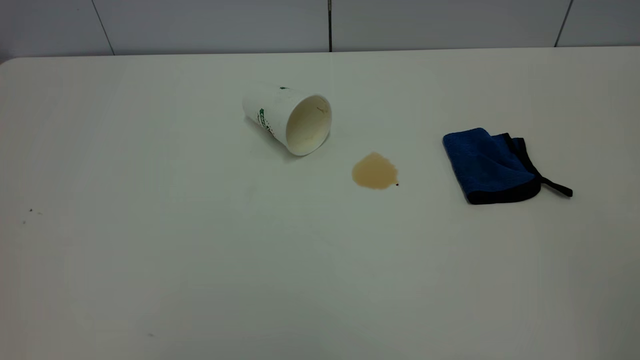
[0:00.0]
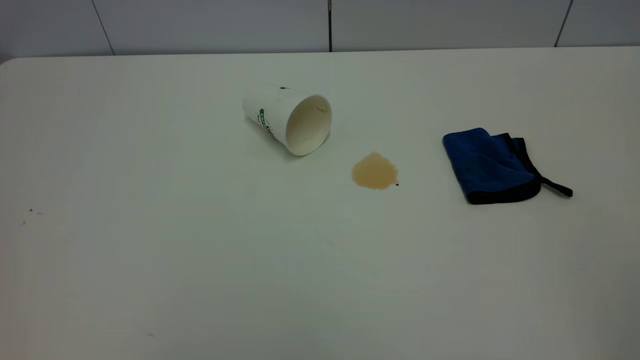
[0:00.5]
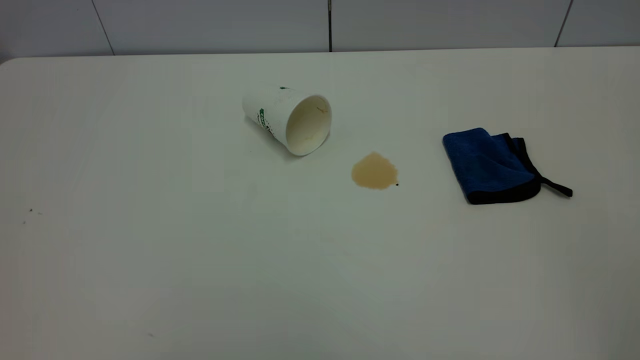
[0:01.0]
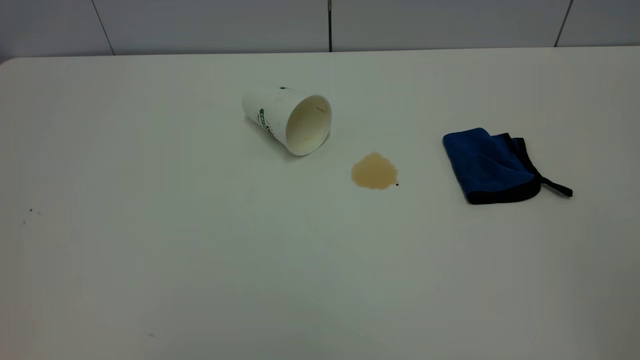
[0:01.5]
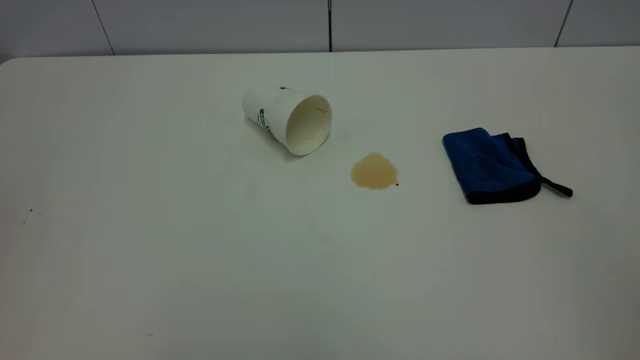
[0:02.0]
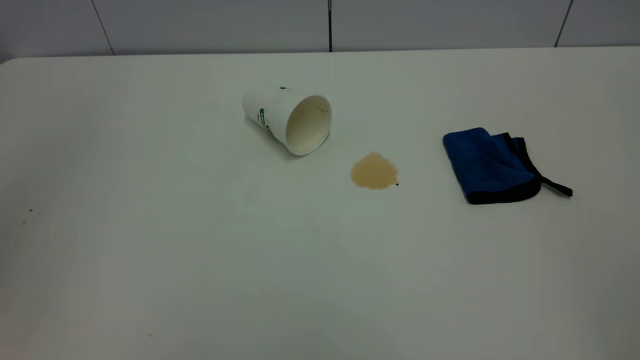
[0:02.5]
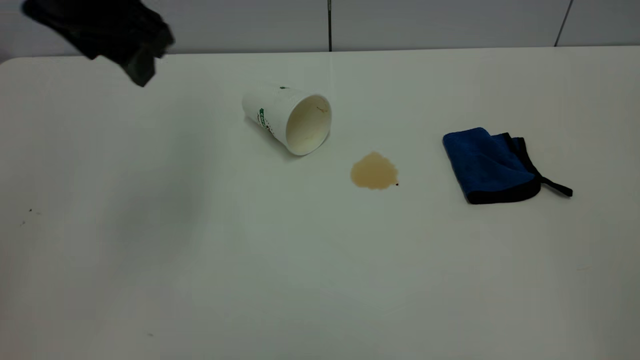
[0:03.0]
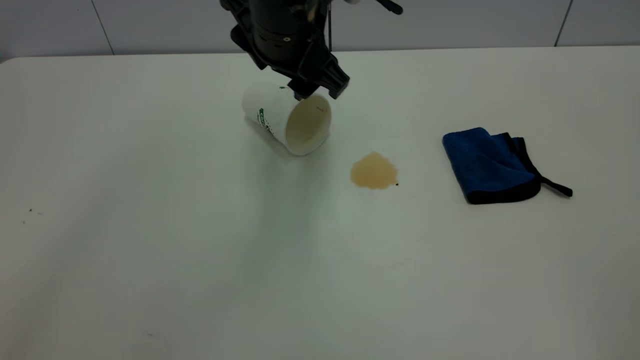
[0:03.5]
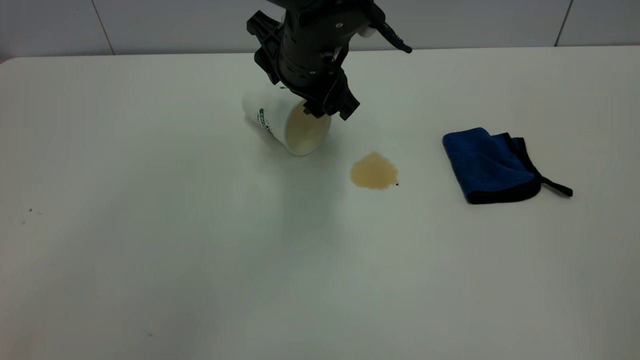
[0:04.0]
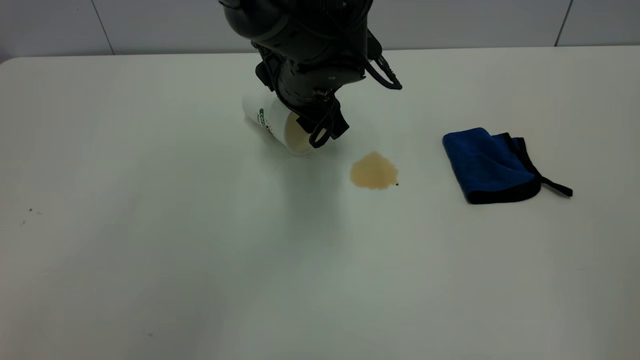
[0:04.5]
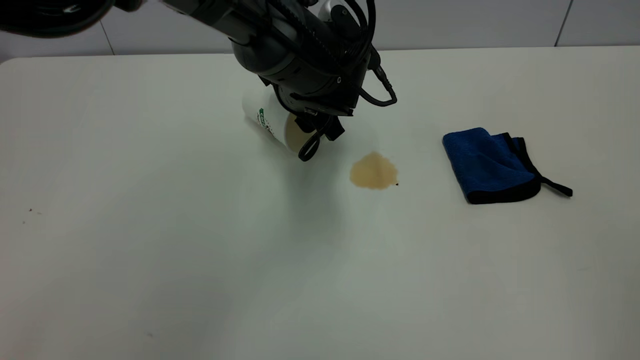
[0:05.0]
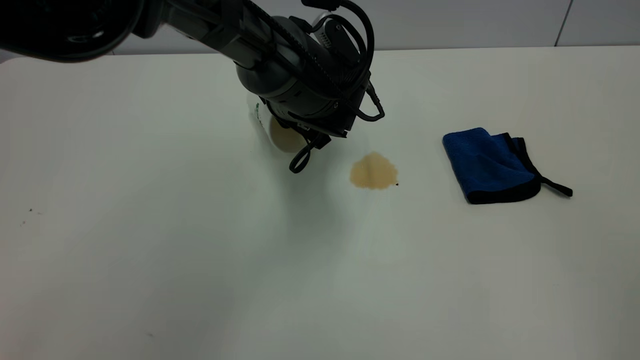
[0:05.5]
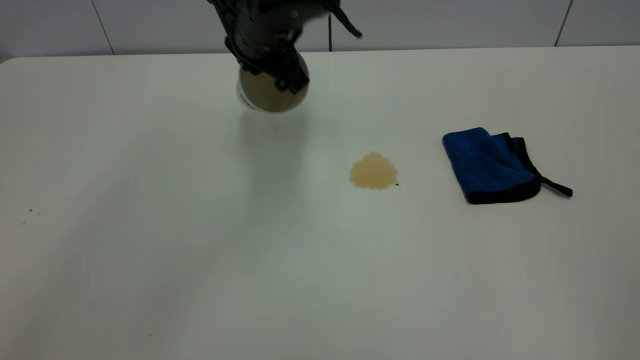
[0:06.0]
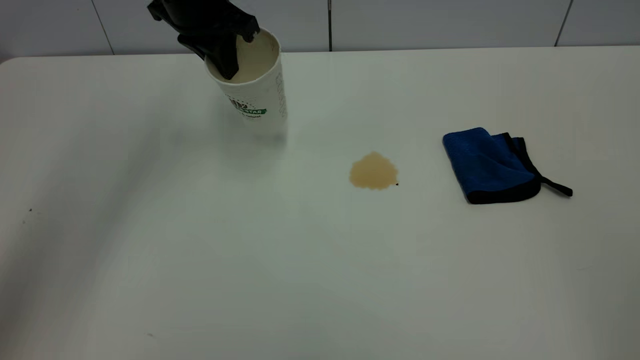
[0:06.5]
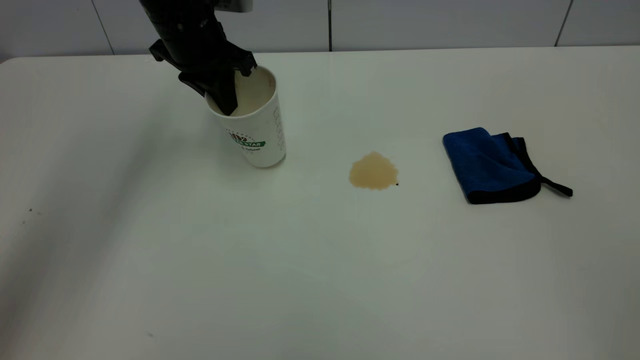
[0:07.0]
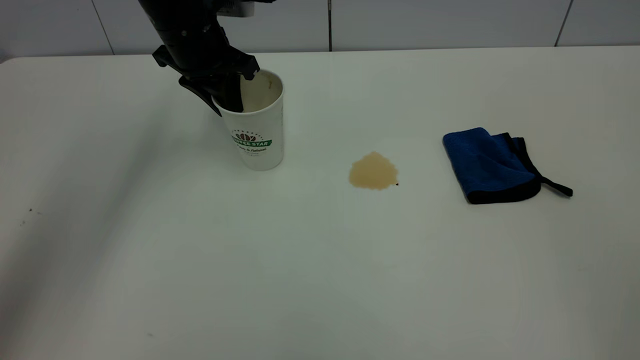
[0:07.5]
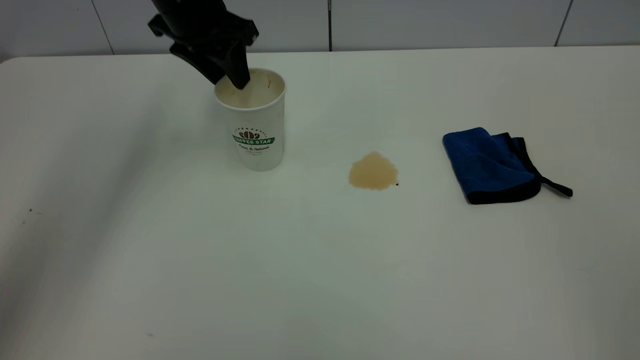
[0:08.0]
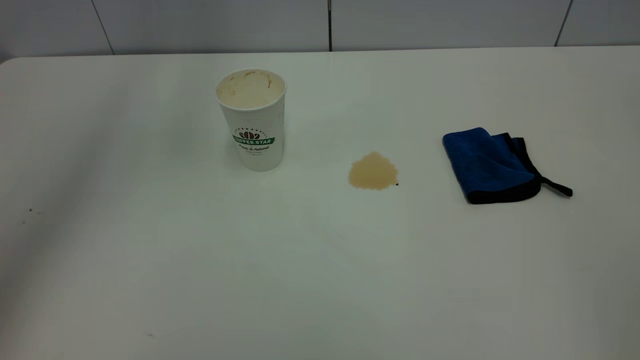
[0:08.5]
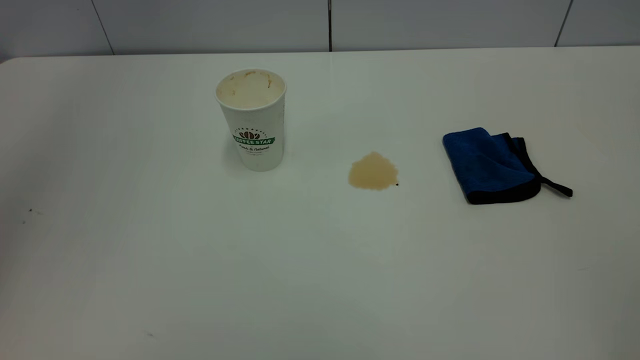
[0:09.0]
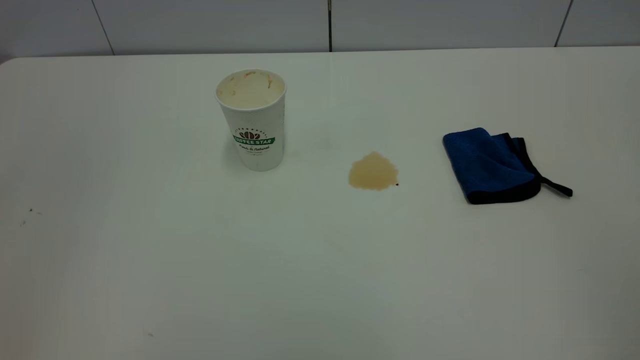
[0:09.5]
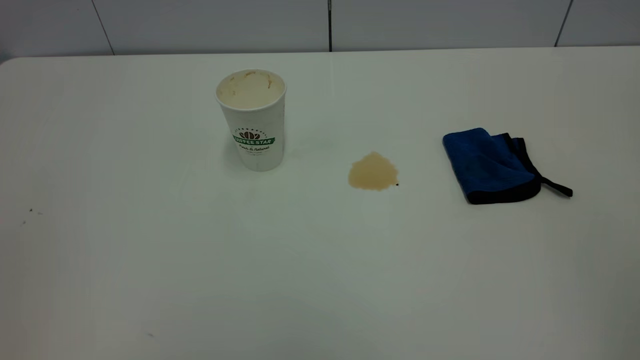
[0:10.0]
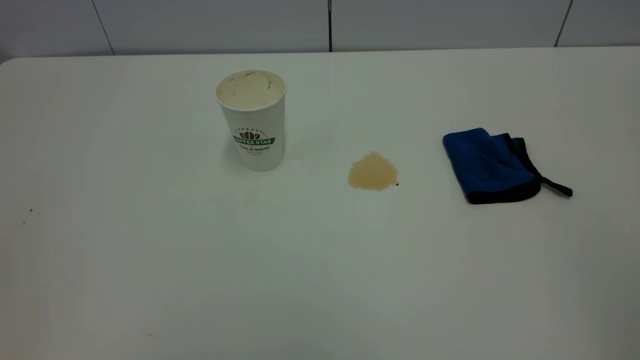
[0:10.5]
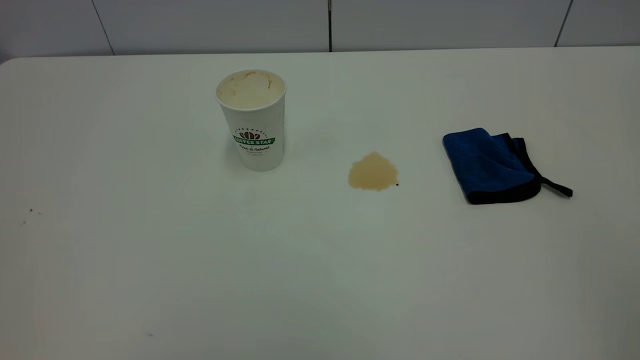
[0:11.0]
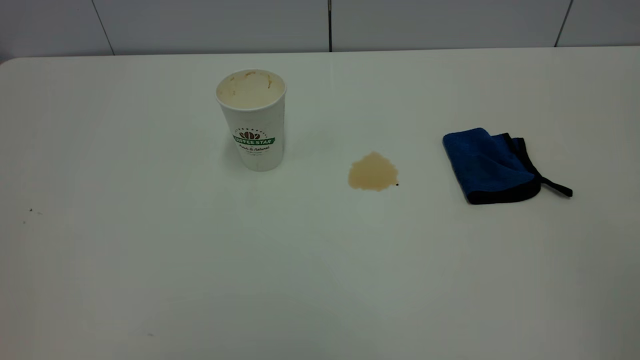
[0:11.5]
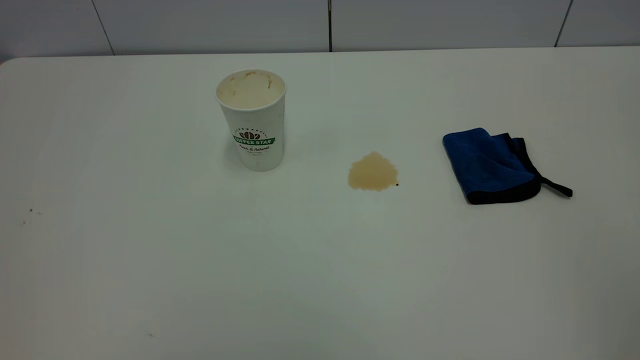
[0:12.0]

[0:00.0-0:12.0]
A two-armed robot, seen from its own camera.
Task of the whole recording: the left gripper pick up the fallen cup and place it upright, the right gripper grasp the blue rag and wipe the tea stain on the table, the right gripper put the blue rag back in its original position.
Step, 0:00.0 to 0:08.0: Stand the paper cup upright.
0:02.0 to 0:04.0: The left gripper heads forward, to the right and downward, covering approximately 50 cm.
0:04.0 to 0:06.0: The left gripper heads to the left, covering about 5 cm, moves roughly 5 cm downward and comes back, and closes its fingers.
0:06.0 to 0:08.0: The left gripper travels to the left by about 10 cm, and opens its fingers.
0:08.0 to 0:10.0: The left gripper travels backward by roughly 40 cm.

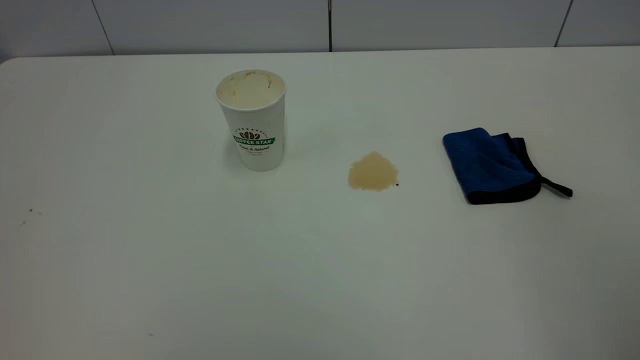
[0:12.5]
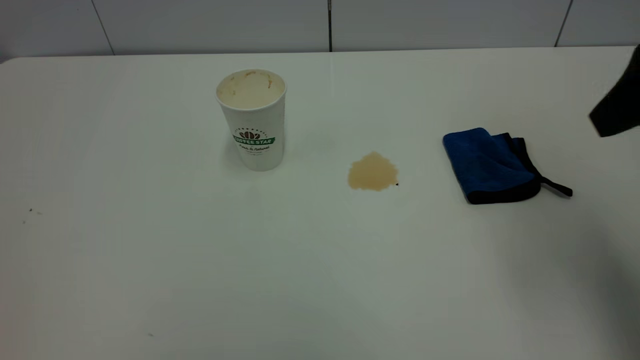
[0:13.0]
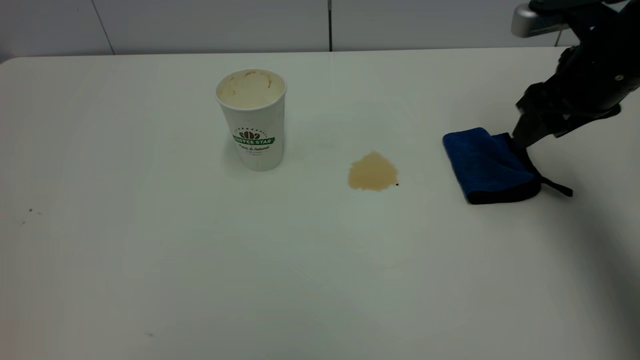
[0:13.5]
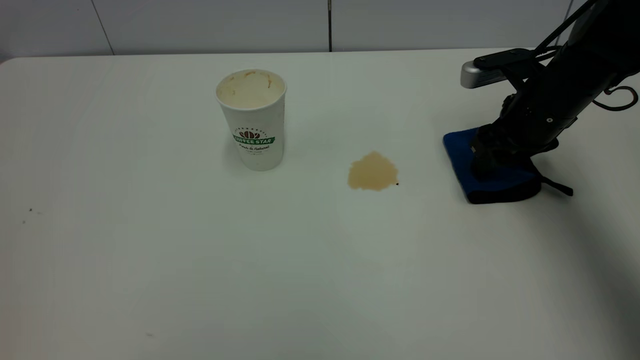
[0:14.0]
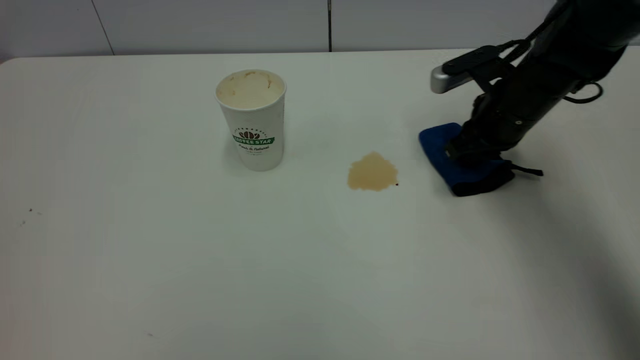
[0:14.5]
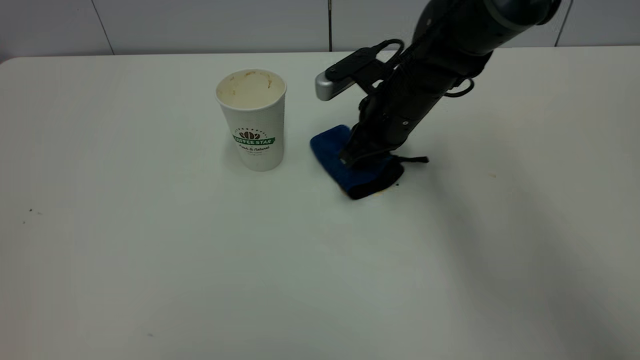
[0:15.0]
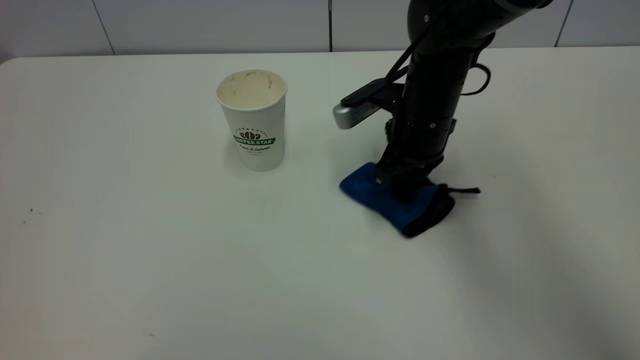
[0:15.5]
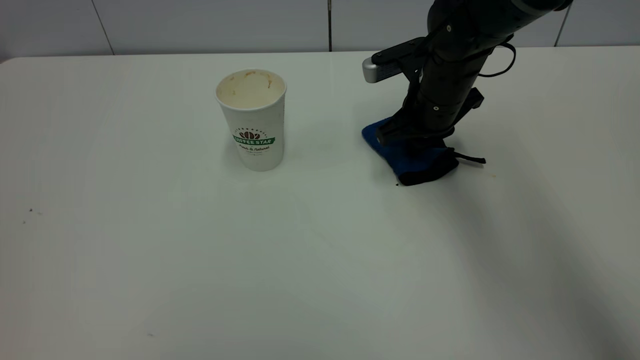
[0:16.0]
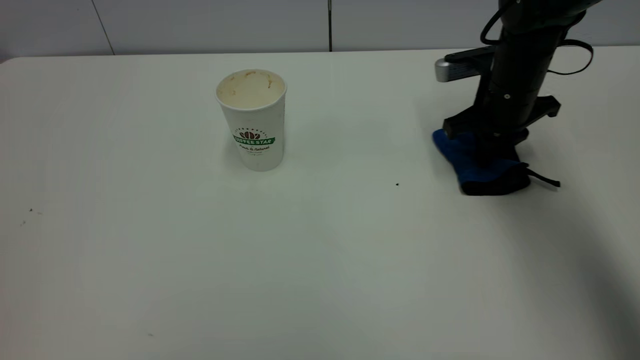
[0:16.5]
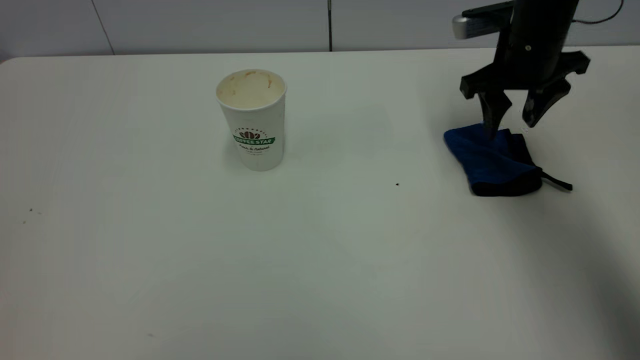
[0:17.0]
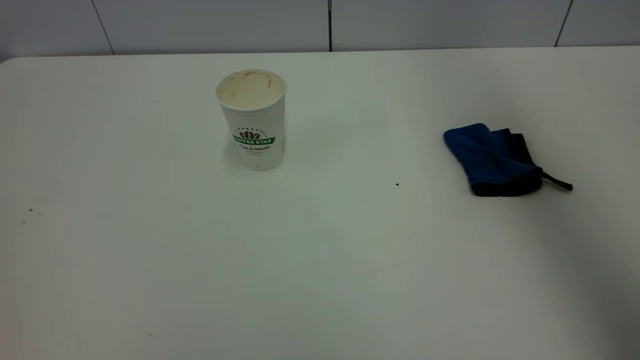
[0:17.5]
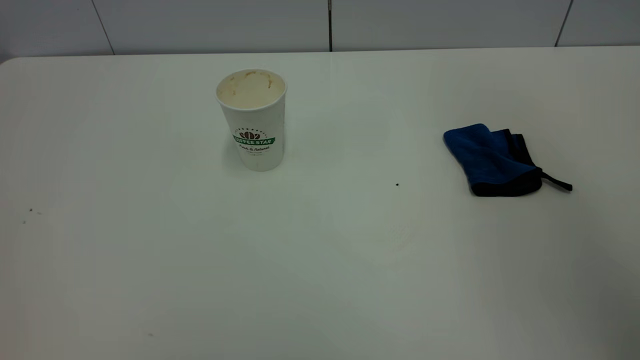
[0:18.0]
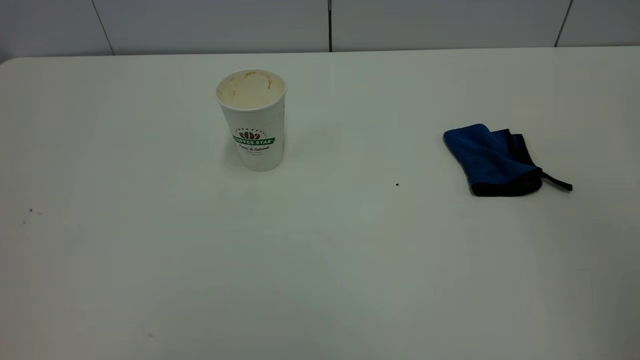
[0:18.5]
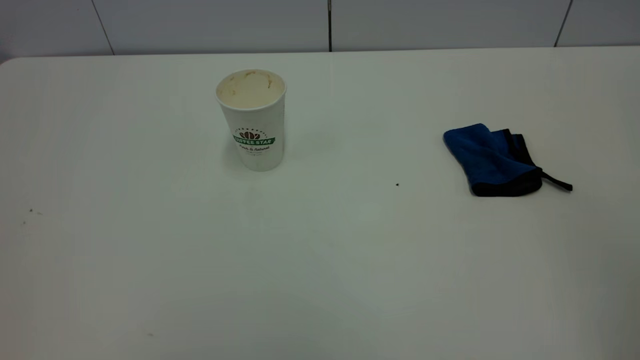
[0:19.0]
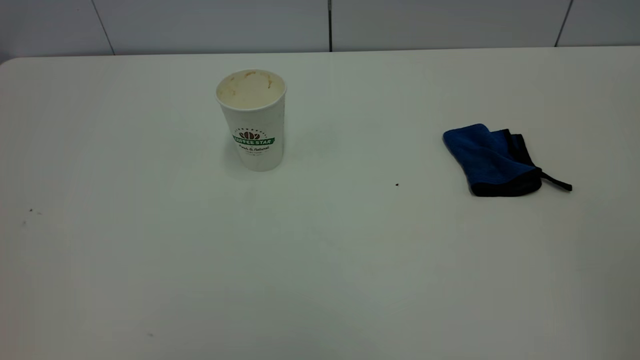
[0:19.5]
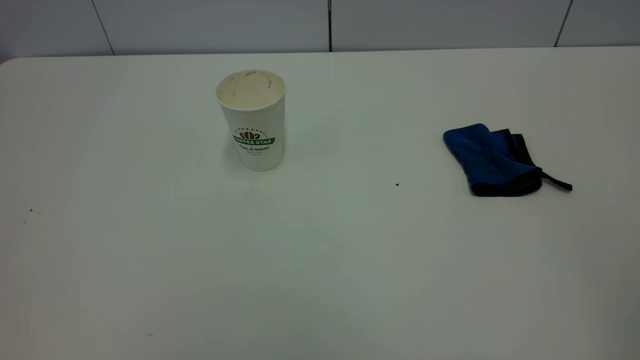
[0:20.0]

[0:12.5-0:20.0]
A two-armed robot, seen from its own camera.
Task of the whole recording: the left gripper pick up the fallen cup and place it upright, the right gripper grasp the blue rag and wipe the tea stain on the table, the right gripper put the blue rag back in its original position.
Step, 0:12.5 to 0:17.0: Wipe the stains off the table with a rag.
0:12.5 to 0:14.5: The right gripper heads forward and downward, covering approximately 40 cm, and closes.
0:14.5 to 0:16.5: The right gripper moves approximately 10 cm to the left and comes back.
0:16.5 to 0:18.0: The right gripper is displaced upward and backward by roughly 40 cm, and opens up.
